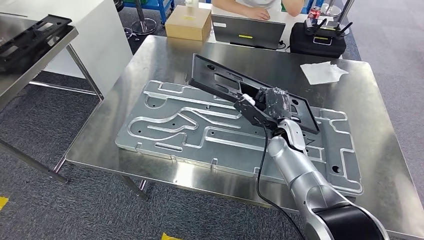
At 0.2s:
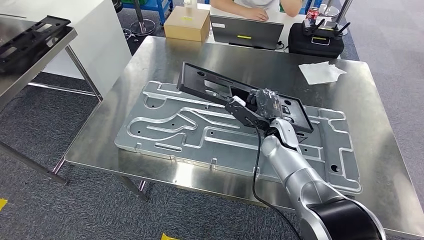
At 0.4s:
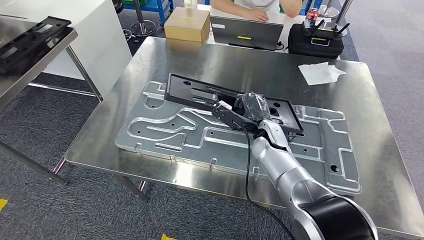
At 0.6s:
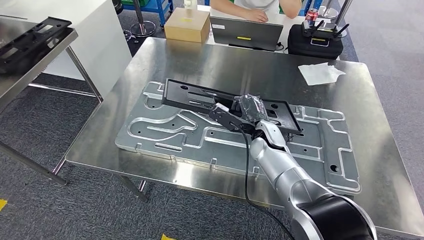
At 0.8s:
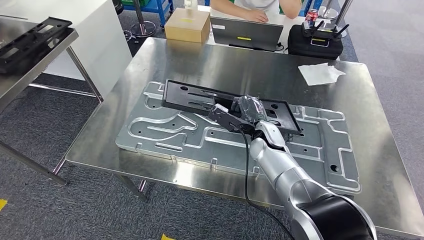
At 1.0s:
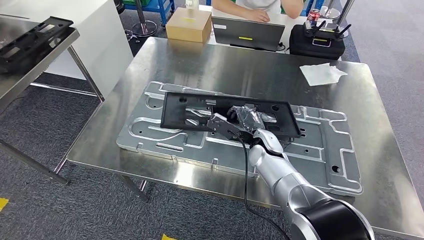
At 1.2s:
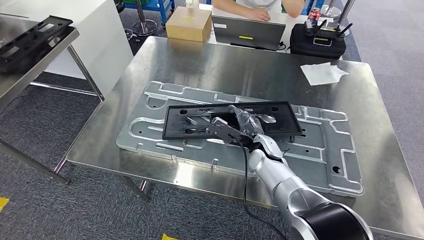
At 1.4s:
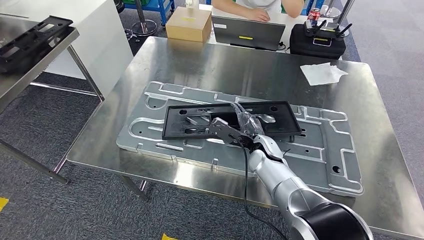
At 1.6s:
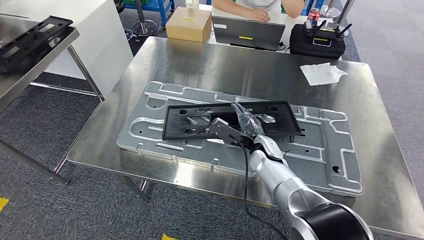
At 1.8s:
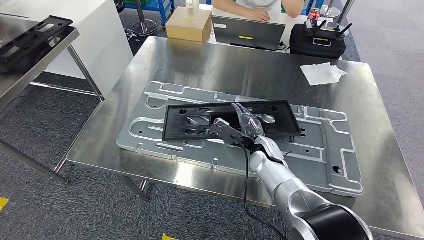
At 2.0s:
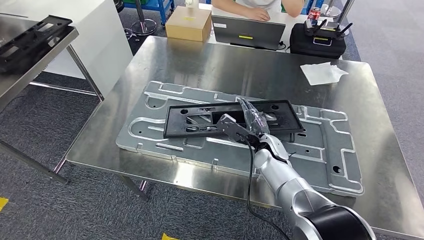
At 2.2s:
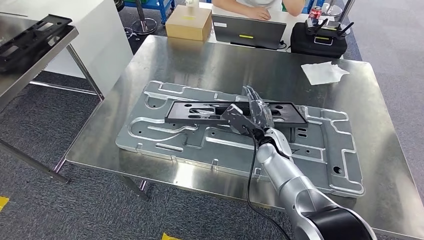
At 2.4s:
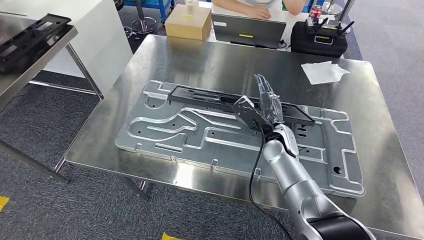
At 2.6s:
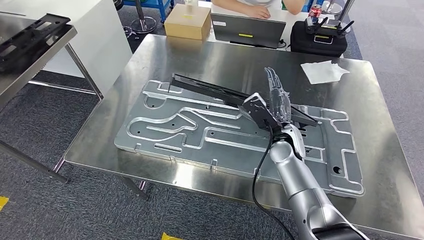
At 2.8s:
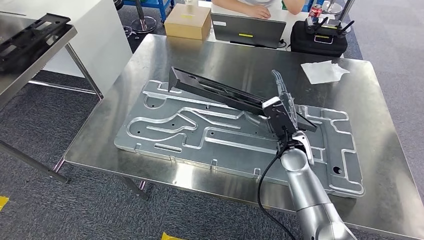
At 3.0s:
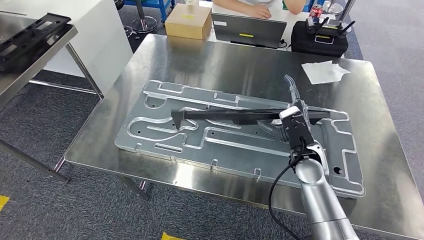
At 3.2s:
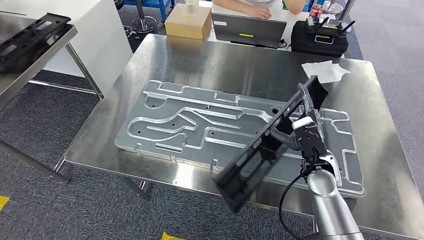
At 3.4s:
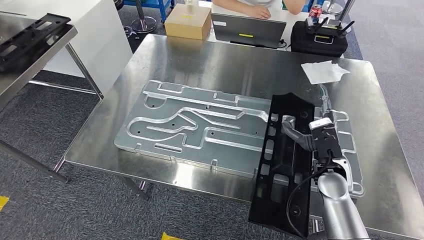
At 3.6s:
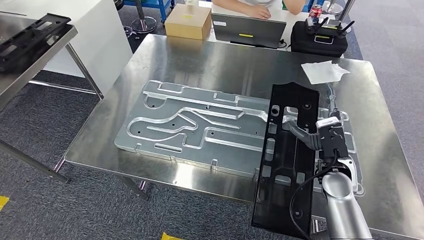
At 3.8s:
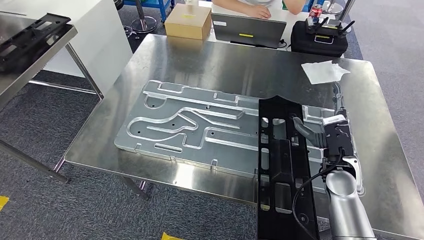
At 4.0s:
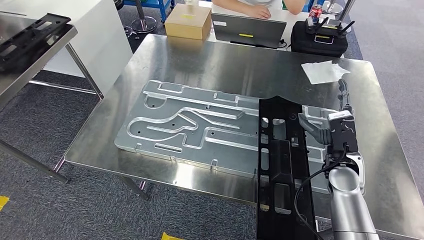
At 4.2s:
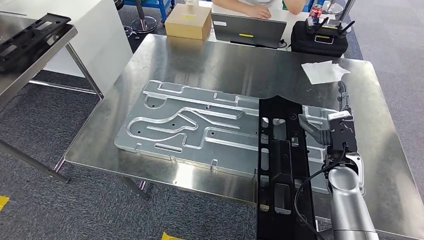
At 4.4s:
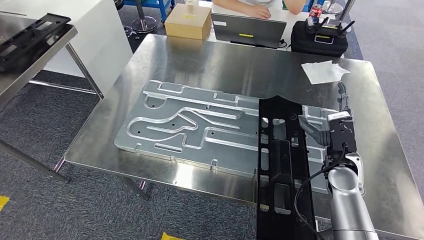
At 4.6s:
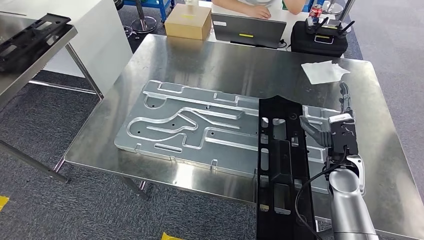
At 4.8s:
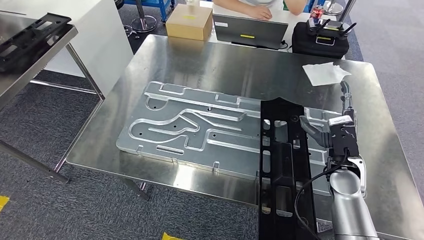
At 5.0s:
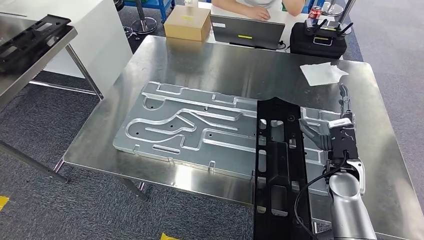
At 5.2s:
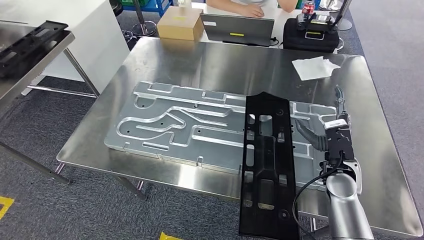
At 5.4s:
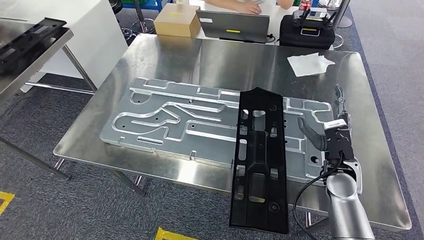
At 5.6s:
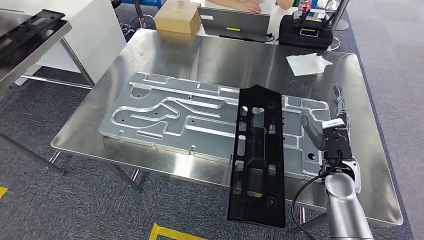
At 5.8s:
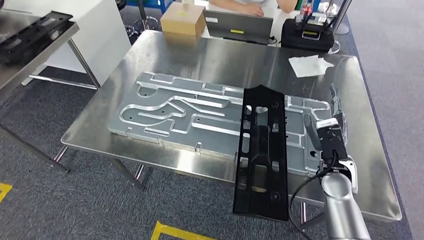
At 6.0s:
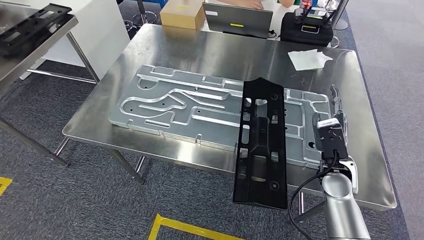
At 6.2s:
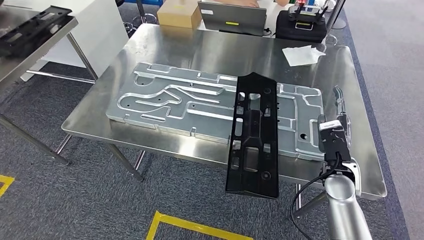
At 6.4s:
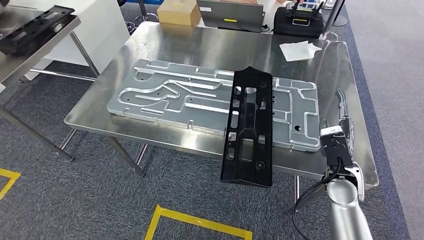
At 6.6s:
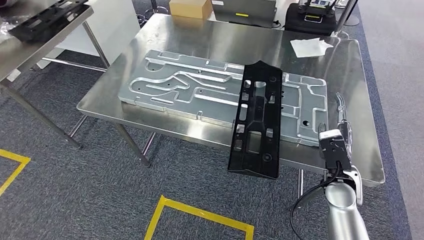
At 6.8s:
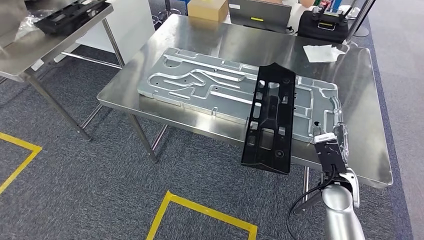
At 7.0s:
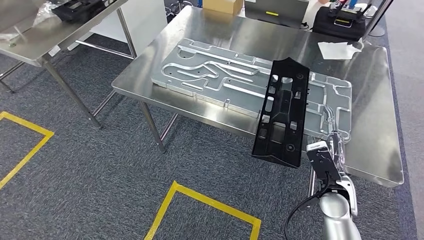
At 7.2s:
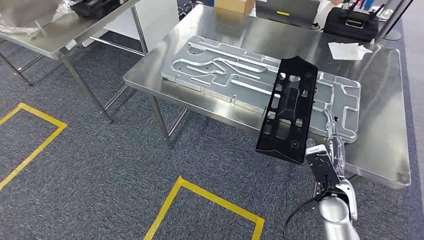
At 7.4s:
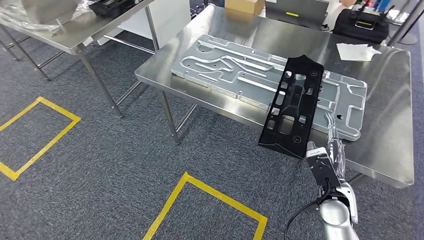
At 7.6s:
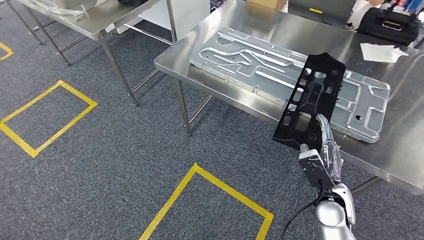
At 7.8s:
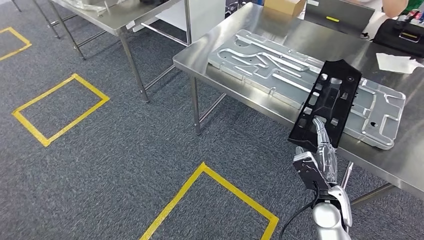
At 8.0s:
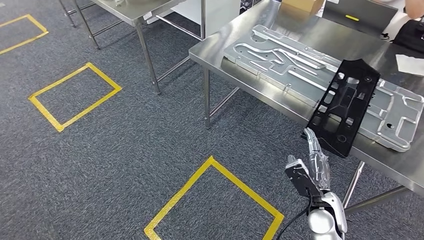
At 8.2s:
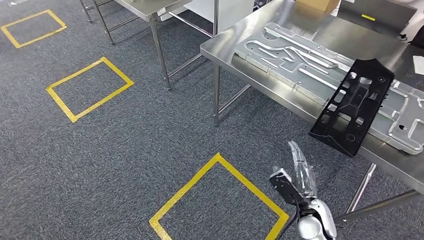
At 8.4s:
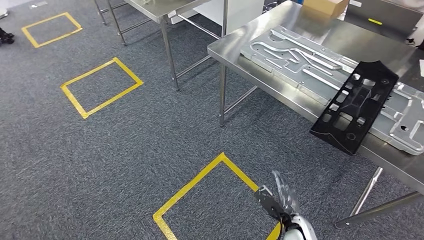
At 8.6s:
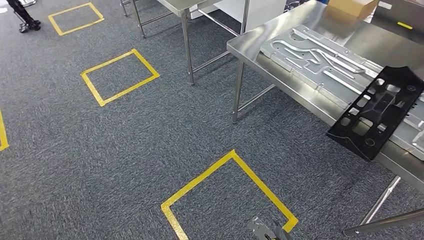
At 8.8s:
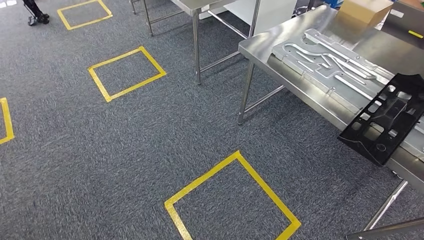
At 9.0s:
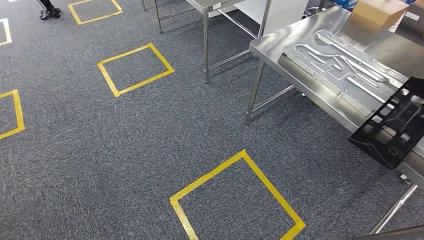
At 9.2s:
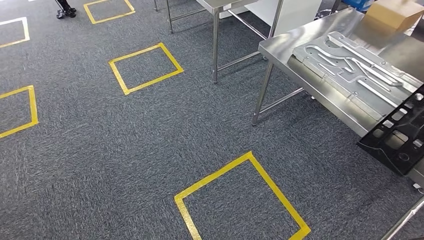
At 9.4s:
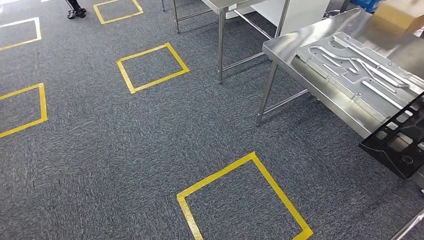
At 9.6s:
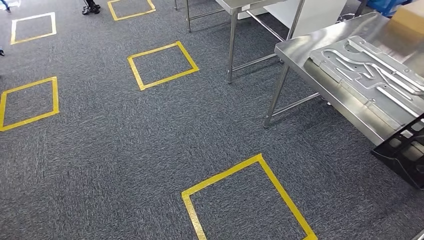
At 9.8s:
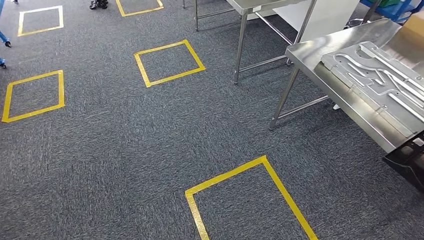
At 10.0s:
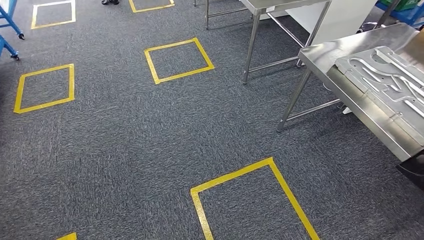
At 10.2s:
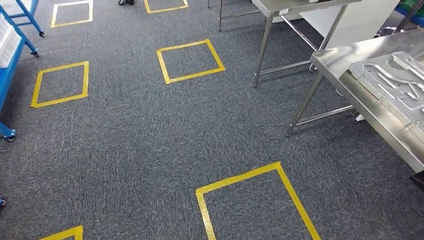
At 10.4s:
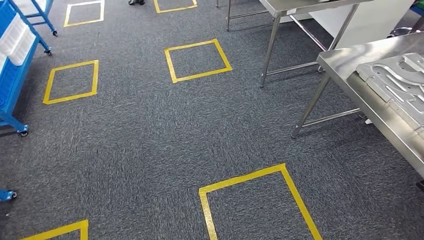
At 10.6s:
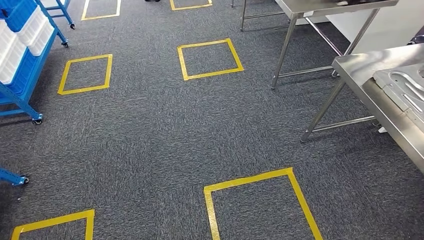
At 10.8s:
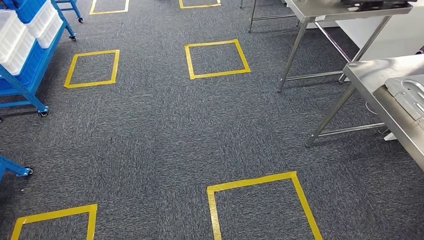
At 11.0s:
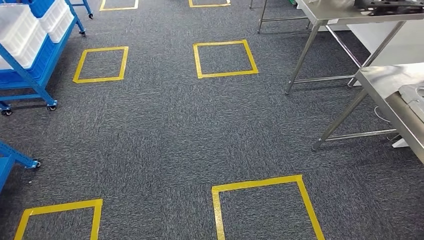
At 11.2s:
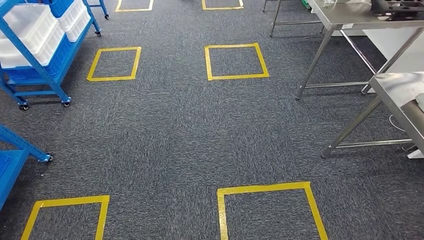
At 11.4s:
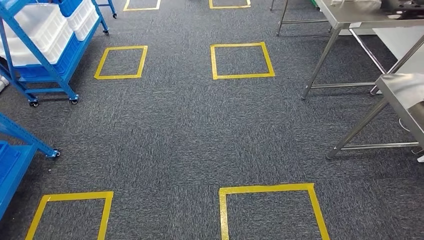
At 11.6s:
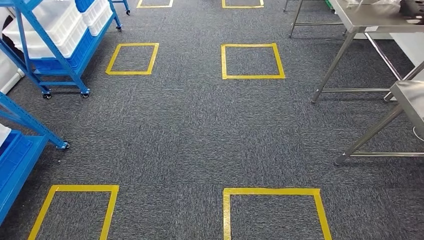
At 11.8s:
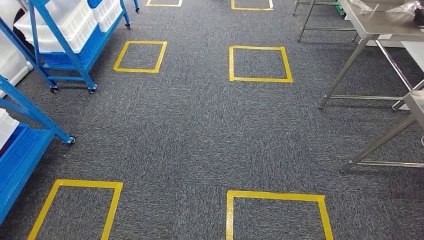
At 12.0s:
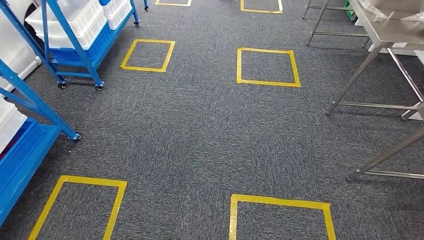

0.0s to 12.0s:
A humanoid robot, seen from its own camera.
Step, 0.0s to 7.2s: Insert the large material into the corresponding slot on the workbench.
0.0s to 1.6s: The right hand moves about 5 cm.
3.0s to 4.4s: The right hand is displaced to the right by about 10 cm.

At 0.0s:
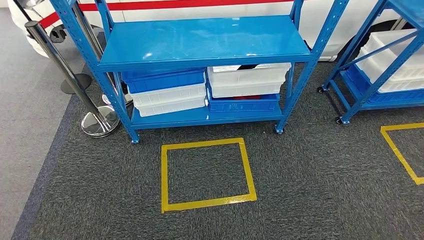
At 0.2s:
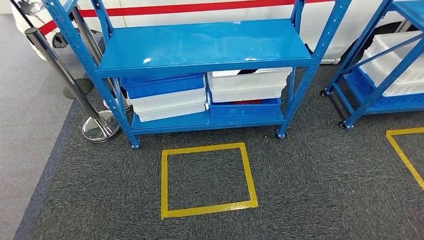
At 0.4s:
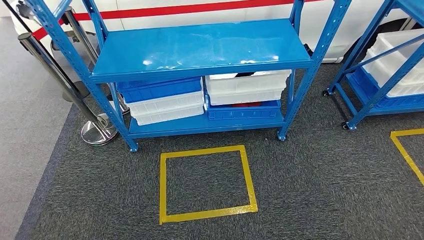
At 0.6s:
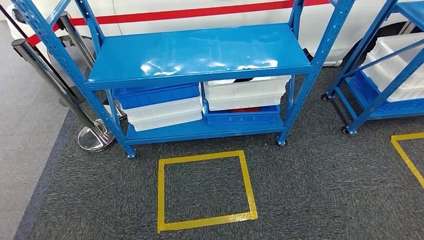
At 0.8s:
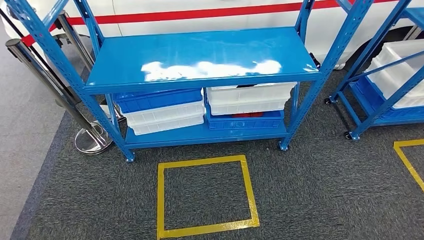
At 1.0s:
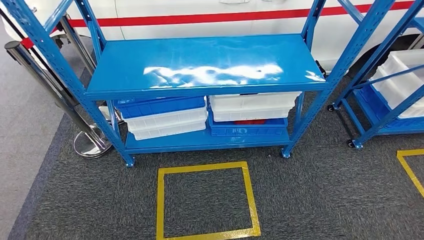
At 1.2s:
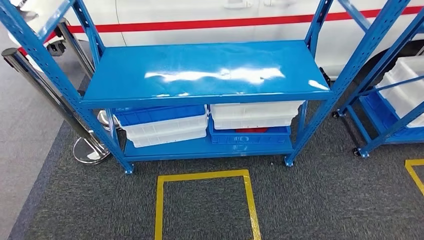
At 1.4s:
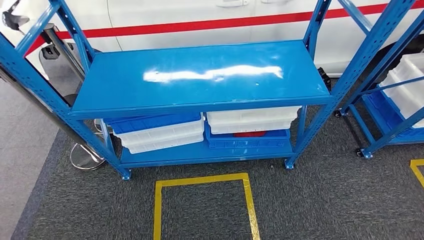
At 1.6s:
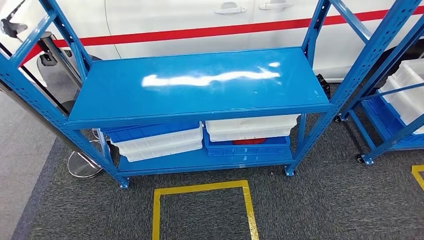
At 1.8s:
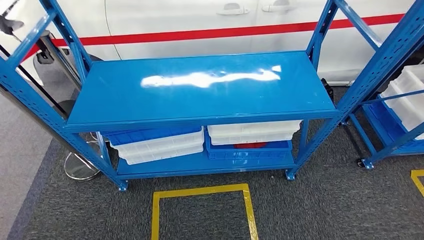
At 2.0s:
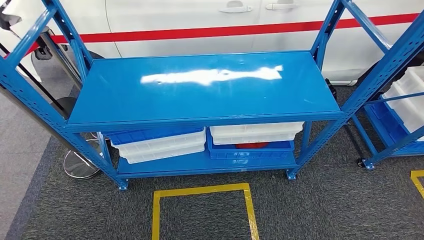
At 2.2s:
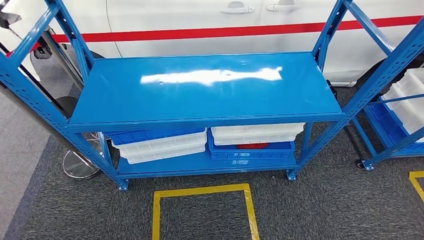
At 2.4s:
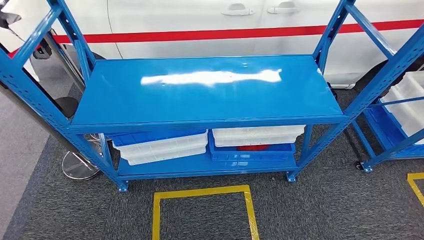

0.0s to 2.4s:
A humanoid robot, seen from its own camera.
Step, 0.0s to 2.2s: Move to the initial position of the shelf.

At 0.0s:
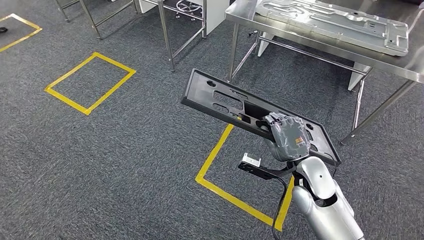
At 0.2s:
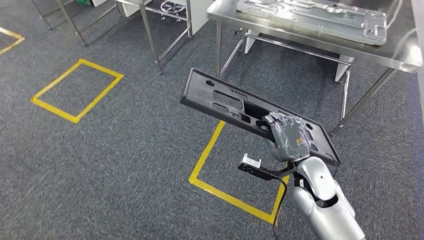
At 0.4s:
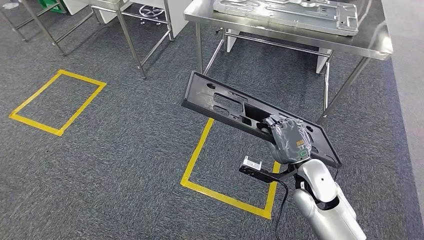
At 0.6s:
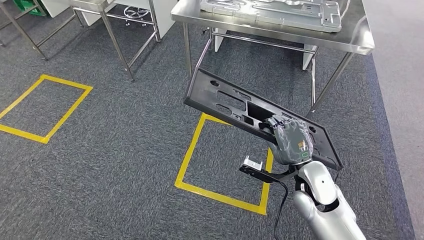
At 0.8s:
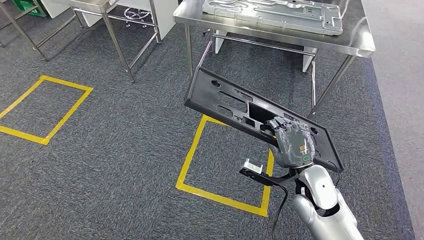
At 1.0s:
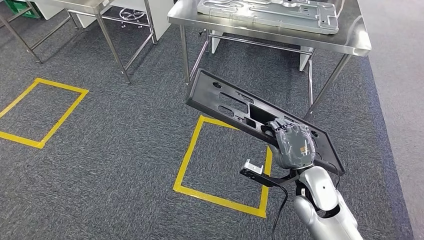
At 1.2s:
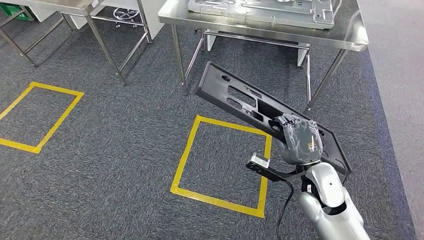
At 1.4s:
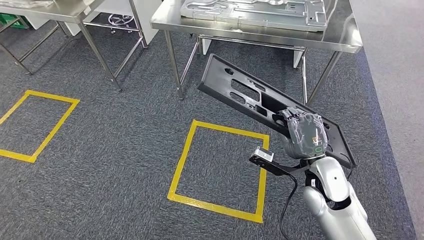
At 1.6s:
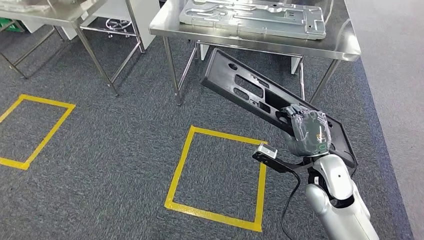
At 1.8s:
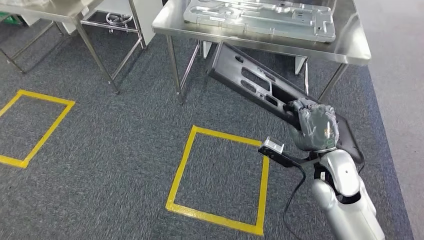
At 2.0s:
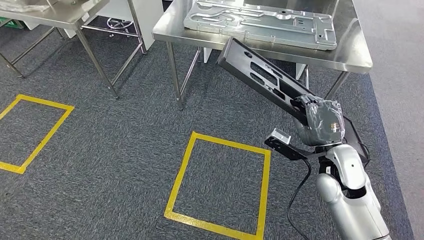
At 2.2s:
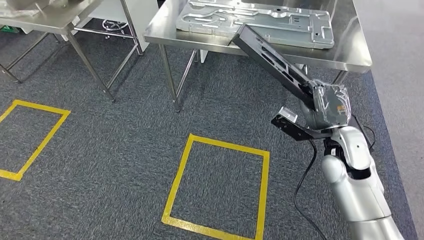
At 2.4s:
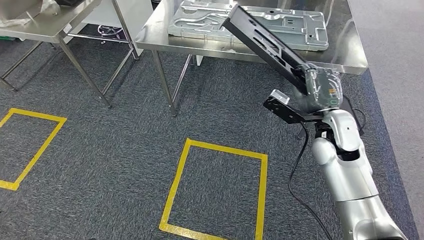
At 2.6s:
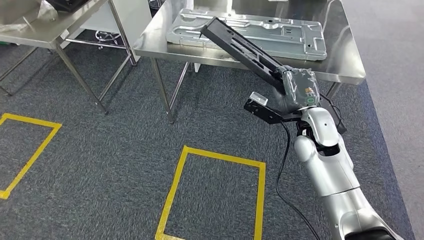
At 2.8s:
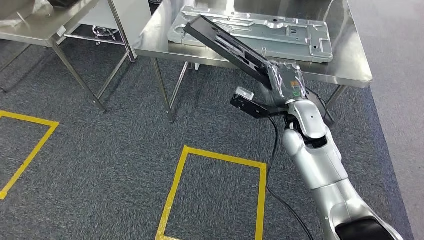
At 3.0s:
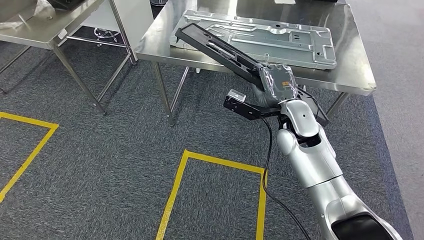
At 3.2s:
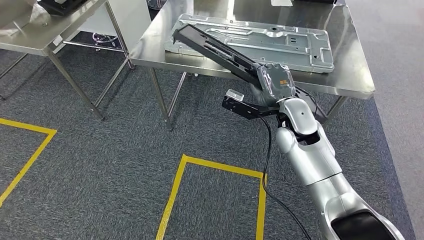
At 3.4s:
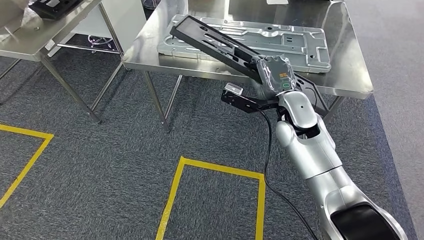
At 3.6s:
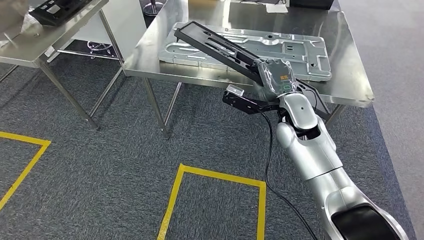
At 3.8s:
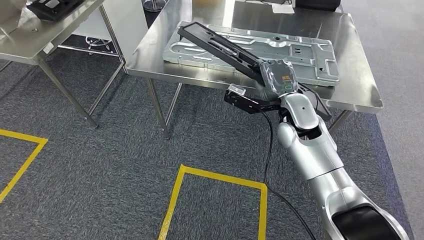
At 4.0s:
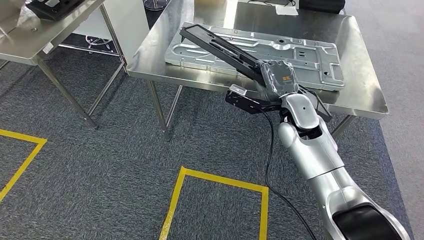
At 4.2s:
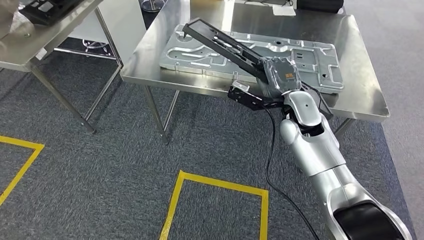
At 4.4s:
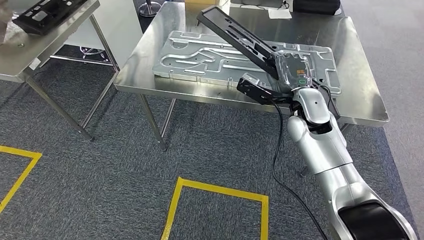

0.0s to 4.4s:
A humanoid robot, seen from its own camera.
Step, 0.0s to 2.8s: Move the large material to the workbench.
